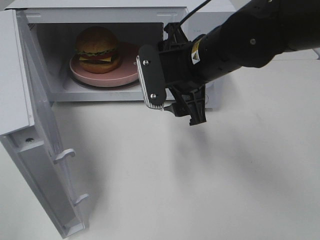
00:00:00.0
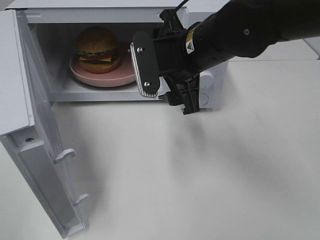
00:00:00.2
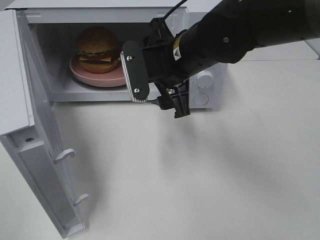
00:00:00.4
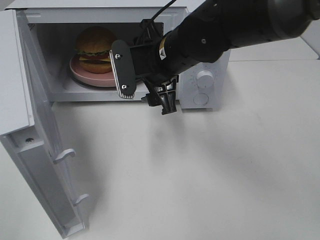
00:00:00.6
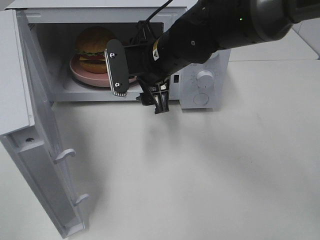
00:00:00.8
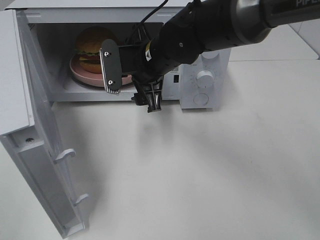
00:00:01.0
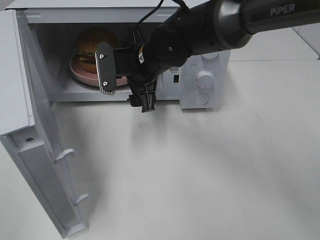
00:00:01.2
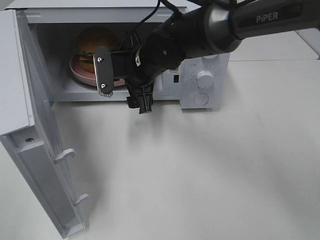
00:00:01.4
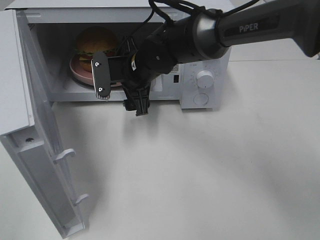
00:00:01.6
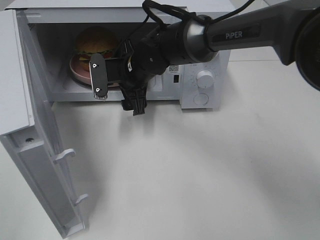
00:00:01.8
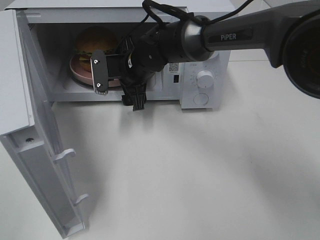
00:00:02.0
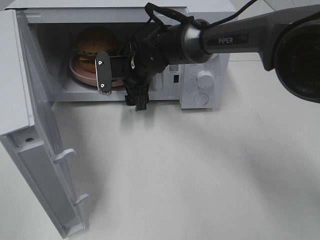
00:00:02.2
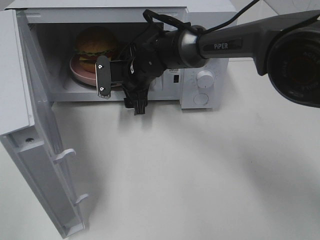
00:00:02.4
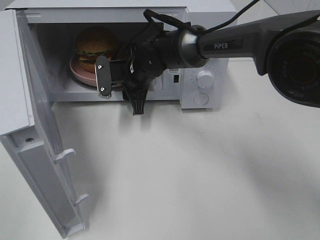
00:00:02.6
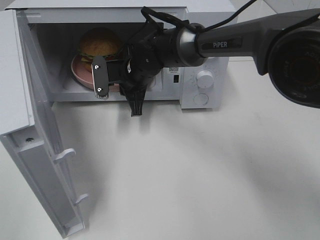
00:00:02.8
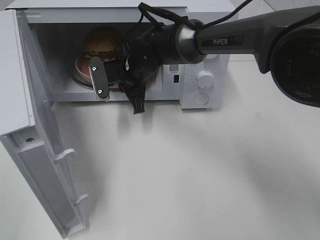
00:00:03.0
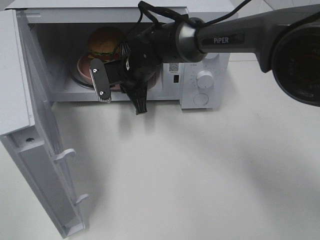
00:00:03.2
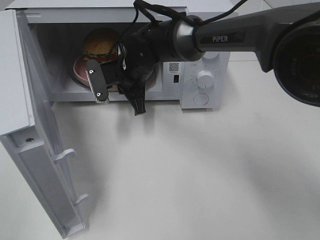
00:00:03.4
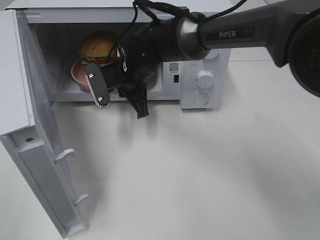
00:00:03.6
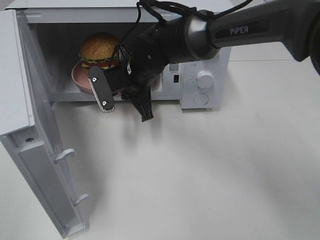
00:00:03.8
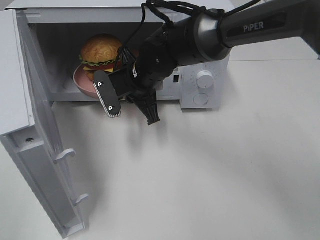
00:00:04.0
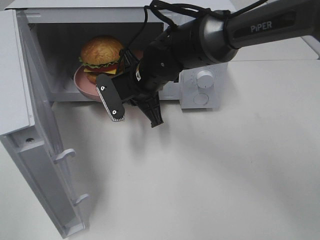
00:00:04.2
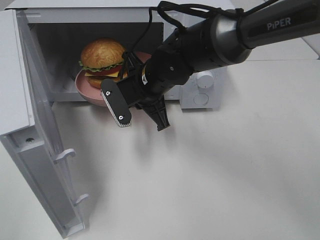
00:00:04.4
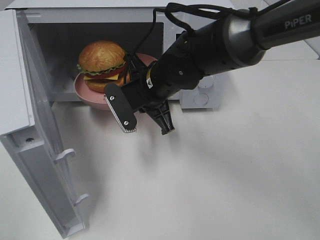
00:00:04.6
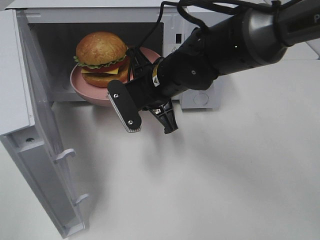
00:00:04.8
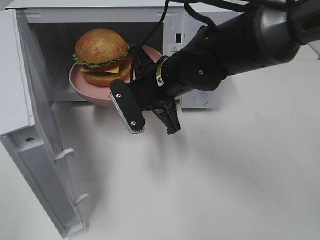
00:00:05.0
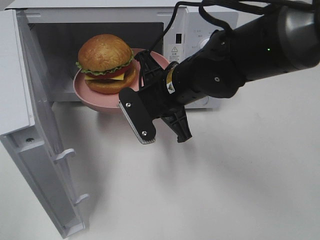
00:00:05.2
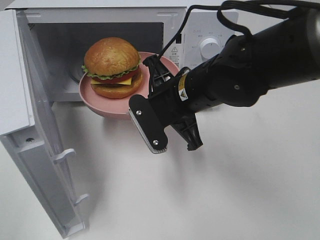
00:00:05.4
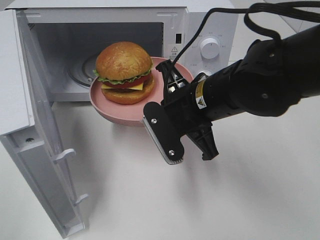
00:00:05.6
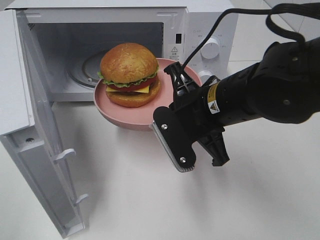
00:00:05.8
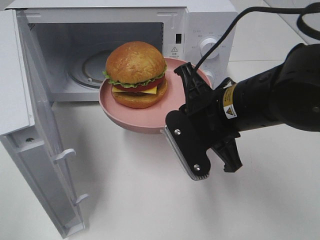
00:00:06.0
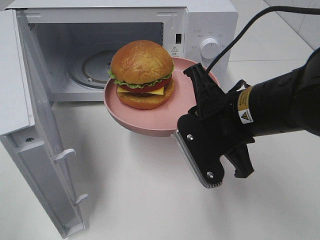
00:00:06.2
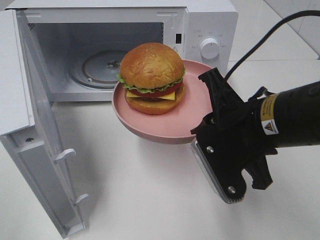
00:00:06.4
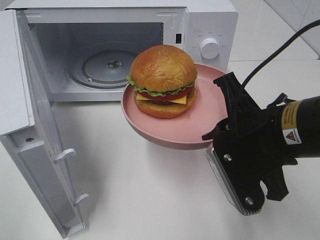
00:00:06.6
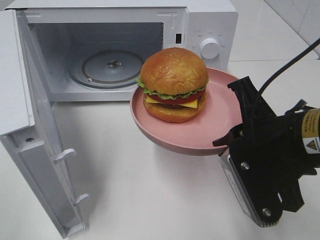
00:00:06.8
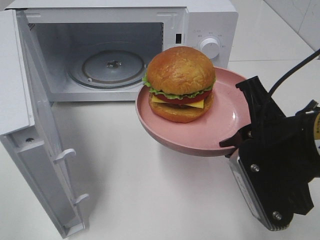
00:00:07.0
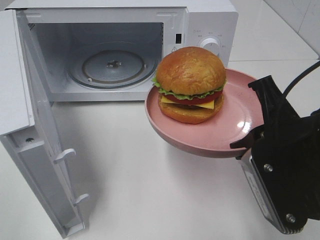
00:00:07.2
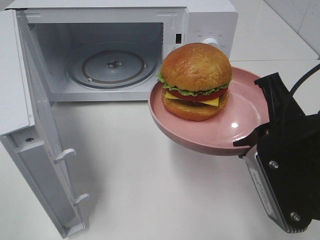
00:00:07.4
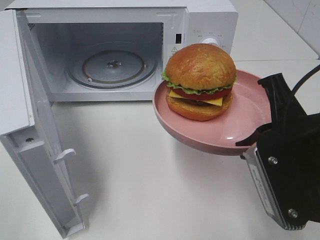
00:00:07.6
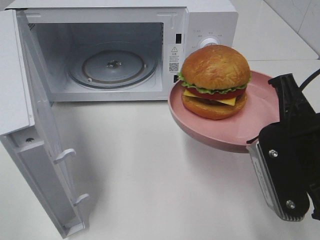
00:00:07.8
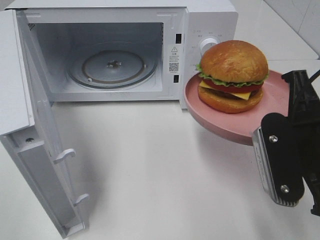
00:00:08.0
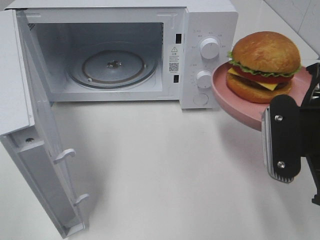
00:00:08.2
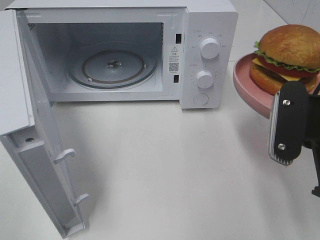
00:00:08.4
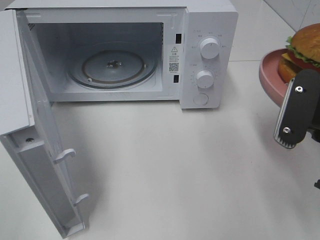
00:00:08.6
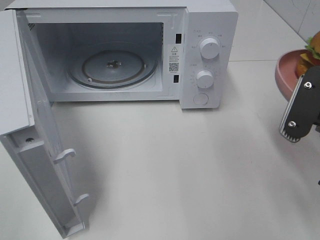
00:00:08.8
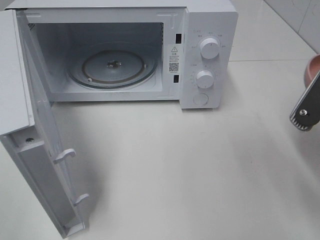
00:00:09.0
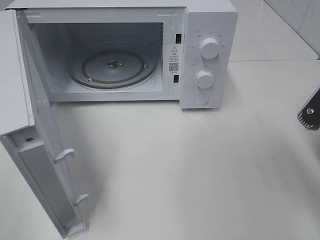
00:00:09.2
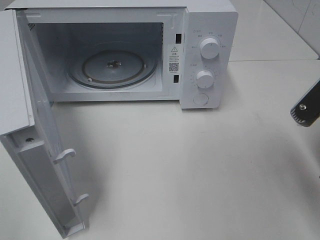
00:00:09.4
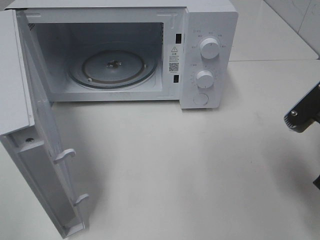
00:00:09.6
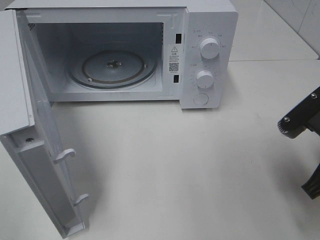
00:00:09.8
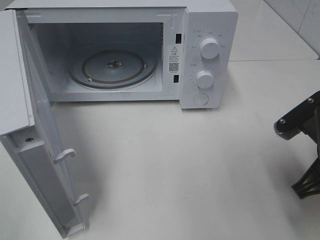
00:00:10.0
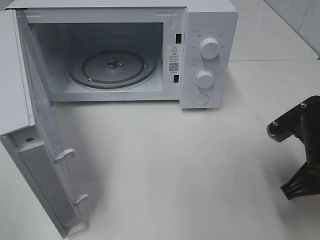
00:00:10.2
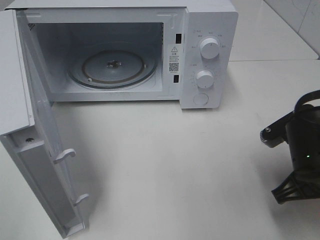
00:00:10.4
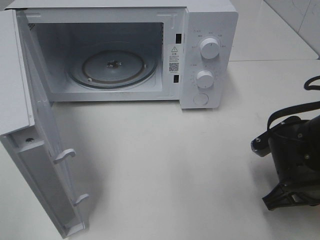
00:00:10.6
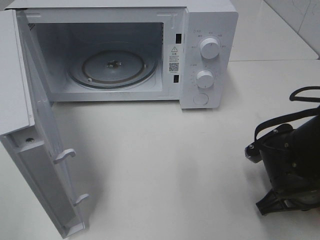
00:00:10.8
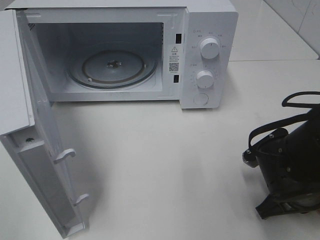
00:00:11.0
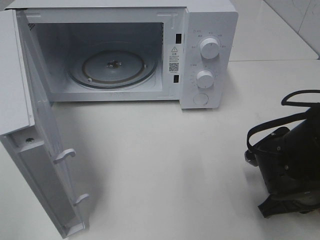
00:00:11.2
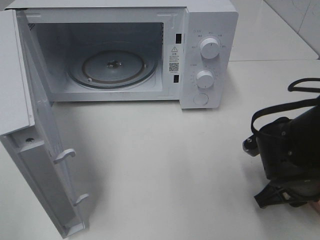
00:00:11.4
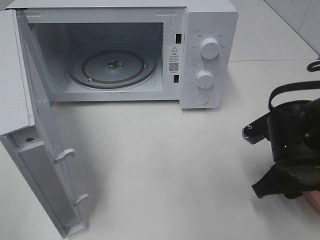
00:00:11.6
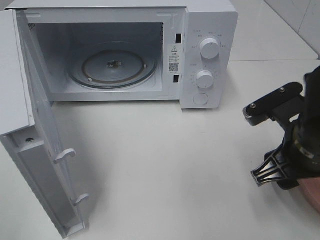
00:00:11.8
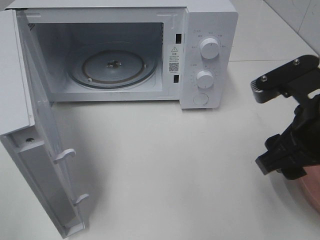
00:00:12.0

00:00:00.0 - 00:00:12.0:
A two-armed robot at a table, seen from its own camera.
Task of the whole recording: Heat the burger.
Step, 00:00:00.0 - 00:00:03.0: Right hand: grab the plate with the hamburger.
Step, 00:00:03.2 - 00:00:11.6: Right hand: place the plate on the table.
00:00:00.0 - 00:00:01.6: The right gripper moves forward, to the left and downward, approximately 15 cm.
00:00:01.6 - 00:00:03.0: The right gripper closes its fingers.
00:00:03.0 - 00:00:04.4: The right gripper travels backward by some 5 cm.
00:00:04.4 - 00:00:06.0: The right gripper shifts some 15 cm backward and to the right.
00:00:06.0 - 00:00:07.6: The right gripper moves to the right and backward, roughly 10 cm.
00:00:07.6 - 00:00:09.0: The right gripper is displaced to the right by about 5 cm.
00:00:09.0 - 00:00:10.4: The right gripper is displaced downward by roughly 10 cm.
00:00:10.4 - 00:00:12.0: The right gripper heads upward, covering roughly 10 cm, and opens up.

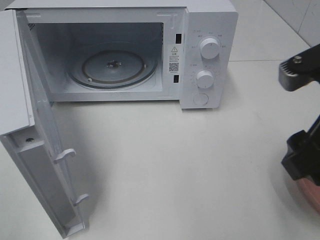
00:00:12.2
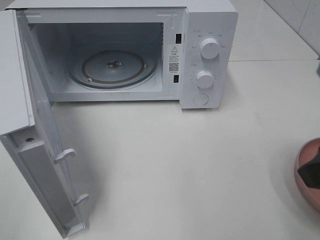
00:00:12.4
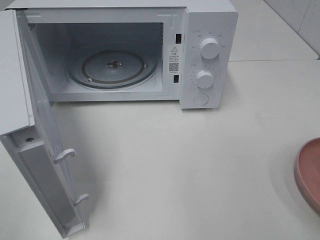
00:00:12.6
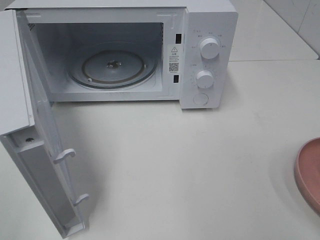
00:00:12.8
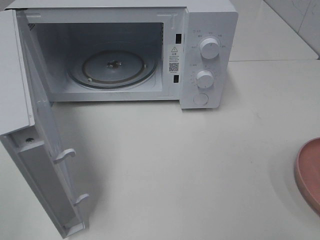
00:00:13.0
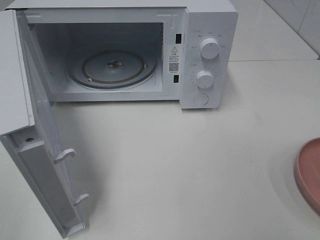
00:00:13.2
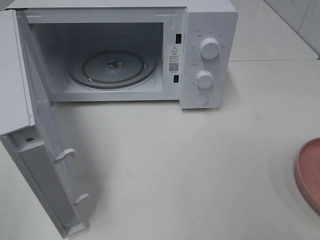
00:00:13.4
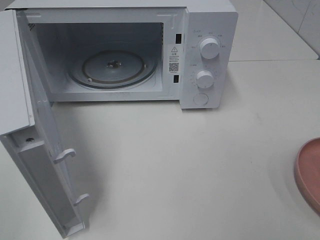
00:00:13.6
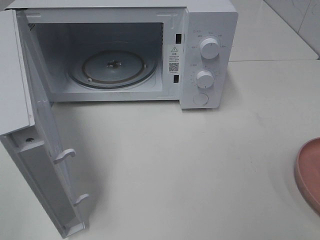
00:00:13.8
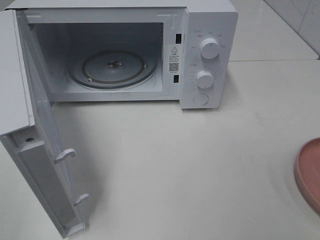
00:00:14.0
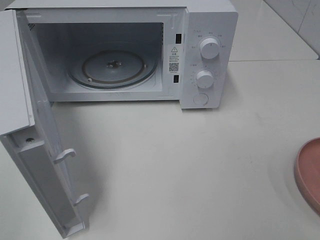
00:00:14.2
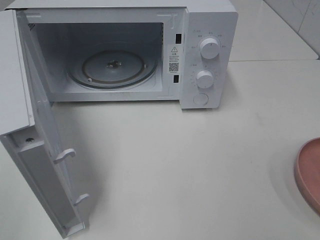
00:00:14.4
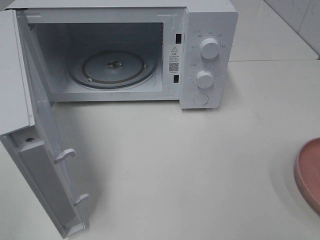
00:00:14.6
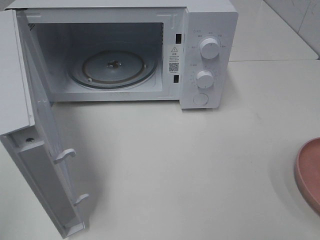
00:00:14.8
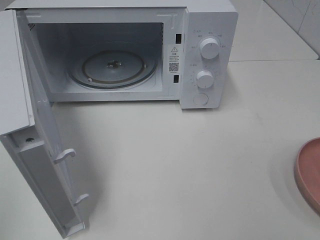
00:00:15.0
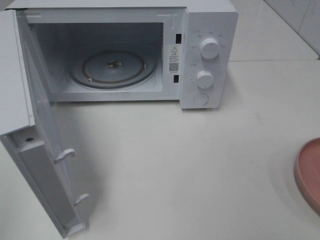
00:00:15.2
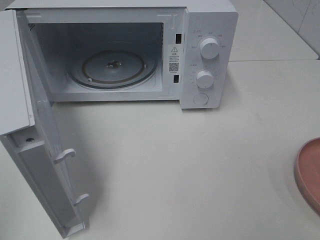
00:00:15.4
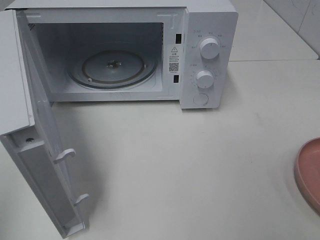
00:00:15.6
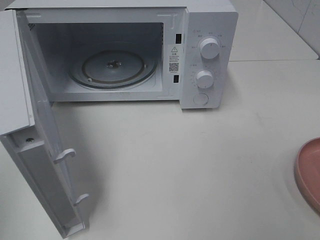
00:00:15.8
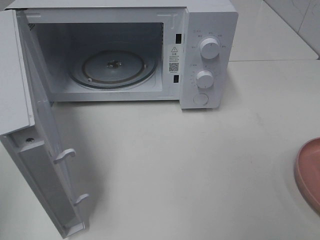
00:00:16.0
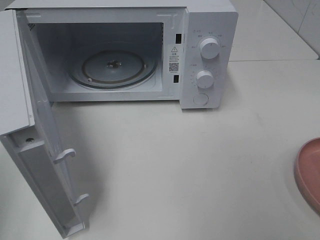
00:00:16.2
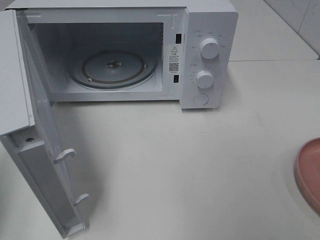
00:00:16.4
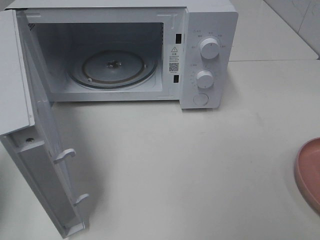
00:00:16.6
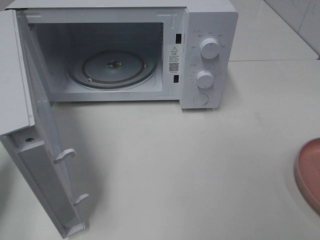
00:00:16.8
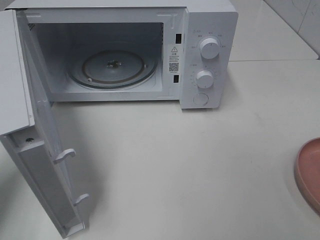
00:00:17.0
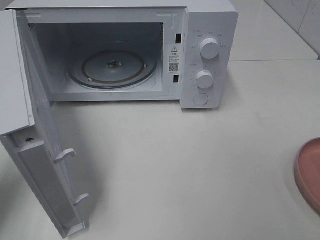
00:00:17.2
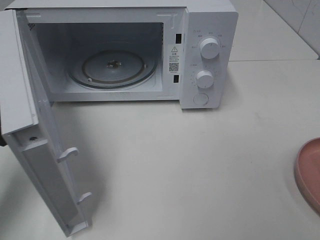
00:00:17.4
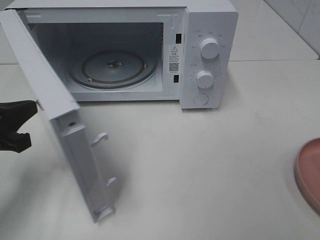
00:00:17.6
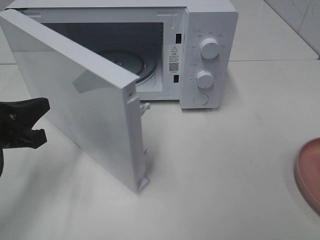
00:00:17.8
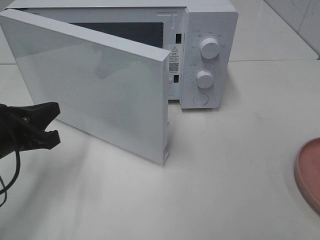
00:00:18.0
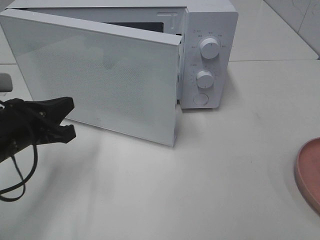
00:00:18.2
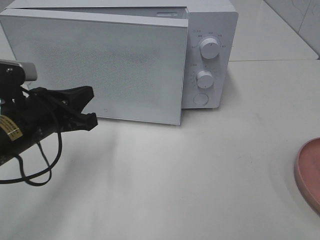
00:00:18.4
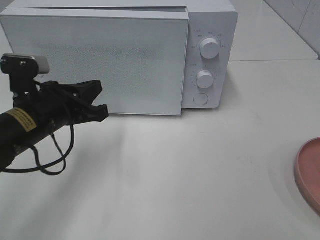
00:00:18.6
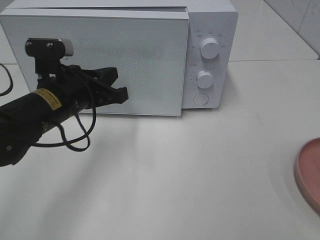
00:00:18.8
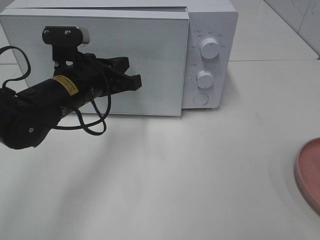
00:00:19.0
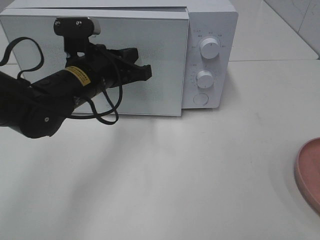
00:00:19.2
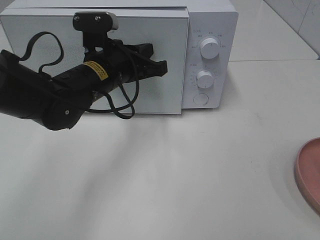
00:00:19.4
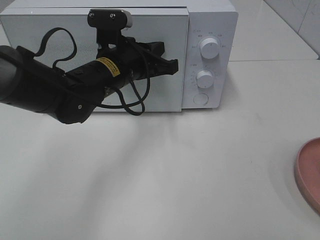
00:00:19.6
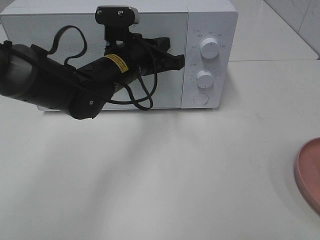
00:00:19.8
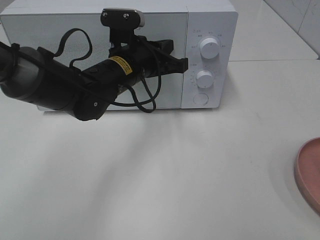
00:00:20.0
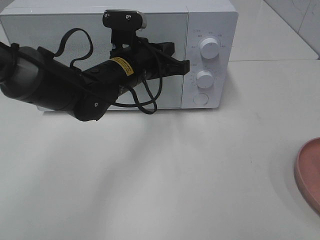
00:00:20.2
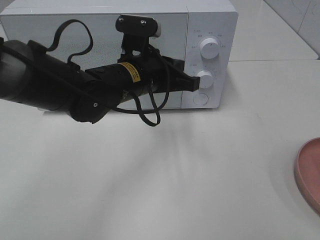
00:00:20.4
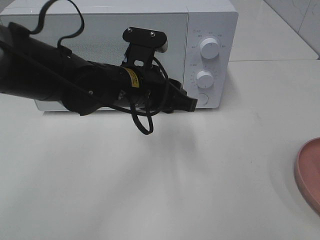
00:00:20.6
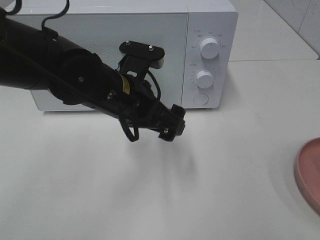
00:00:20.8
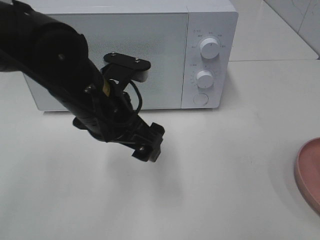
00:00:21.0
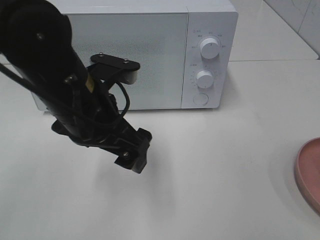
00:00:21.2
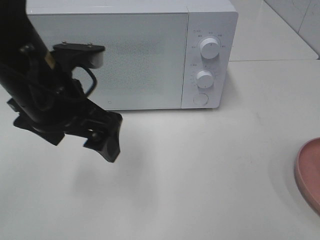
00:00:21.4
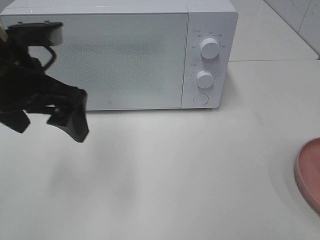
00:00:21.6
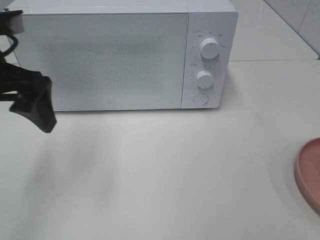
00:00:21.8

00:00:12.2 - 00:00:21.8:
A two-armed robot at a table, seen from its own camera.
Task of the whole recording: Heat the burger.
Step, 00:00:12.2 - 00:00:20.6: Left hand: close the microwave door.
00:00:12.2 - 00:00:13.8: The right gripper is displaced backward and to the right by some 15 cm.
00:00:15.4 - 00:00:17.0: The left gripper shifts about 20 cm forward and downward, and closes.
00:00:17.0 - 00:00:18.6: The left gripper goes about 15 cm to the right, forward and downward.
00:00:18.6 - 00:00:20.2: The left gripper travels to the right and forward by roughly 15 cm.
00:00:20.2 - 00:00:21.8: The left gripper shifts roughly 25 cm to the left, upward and backward, and opens up.
